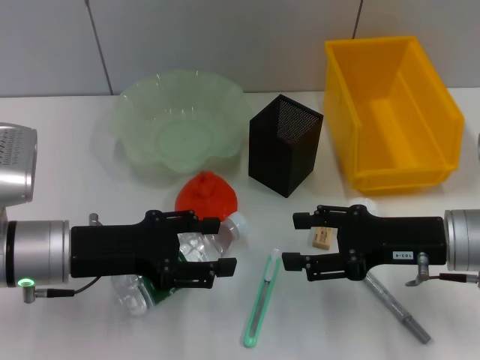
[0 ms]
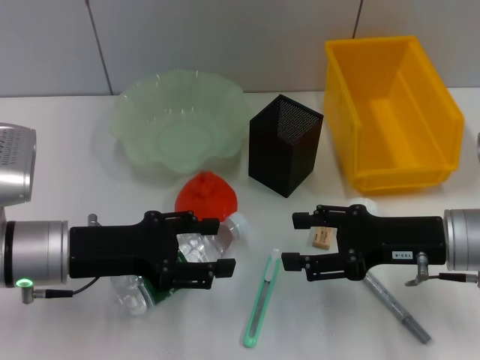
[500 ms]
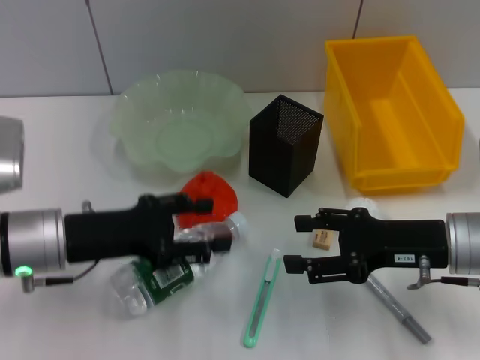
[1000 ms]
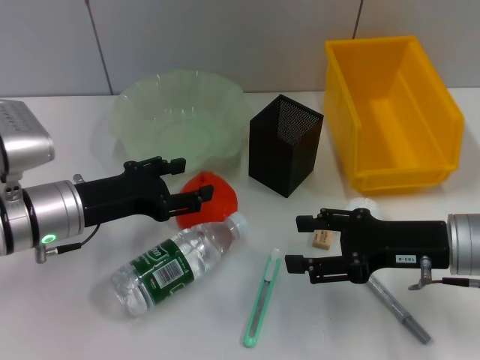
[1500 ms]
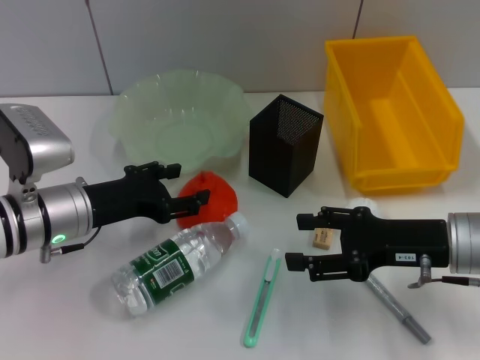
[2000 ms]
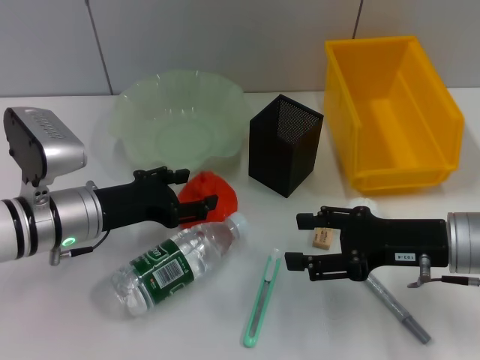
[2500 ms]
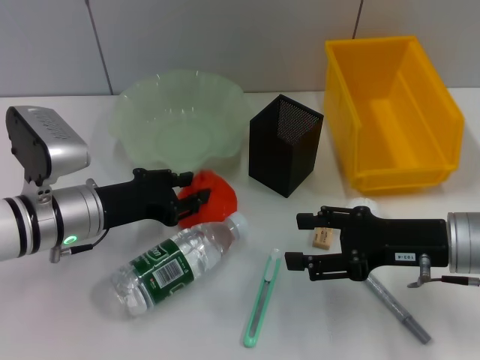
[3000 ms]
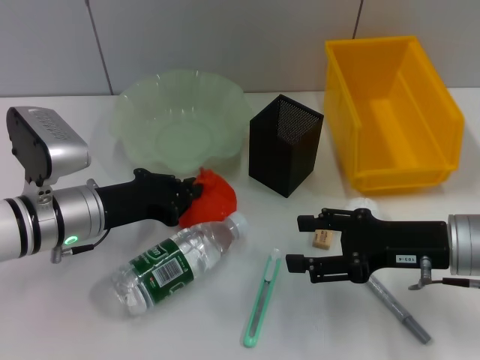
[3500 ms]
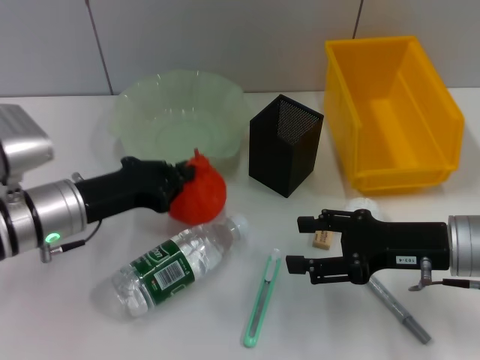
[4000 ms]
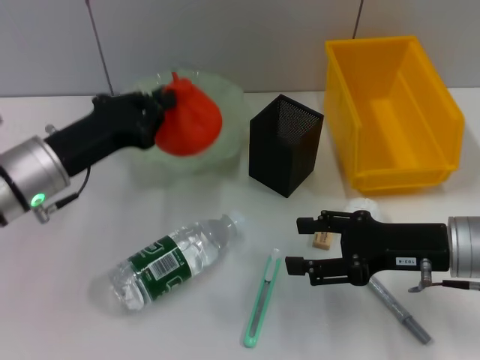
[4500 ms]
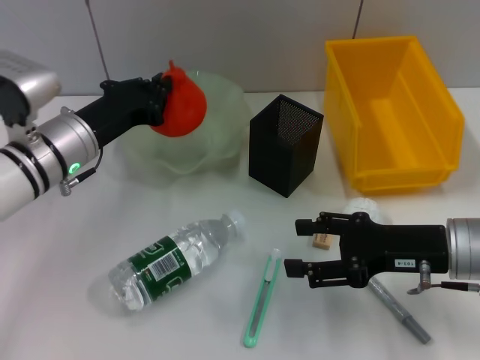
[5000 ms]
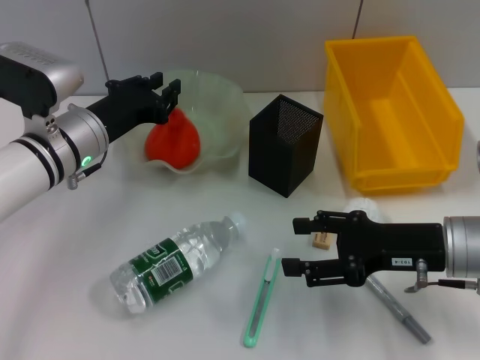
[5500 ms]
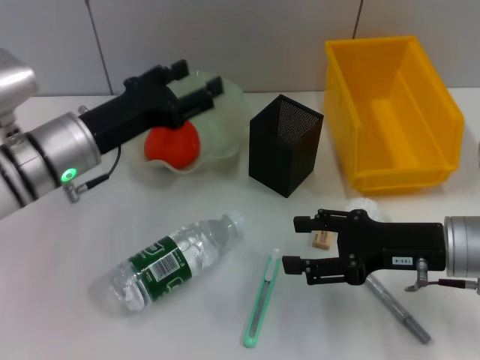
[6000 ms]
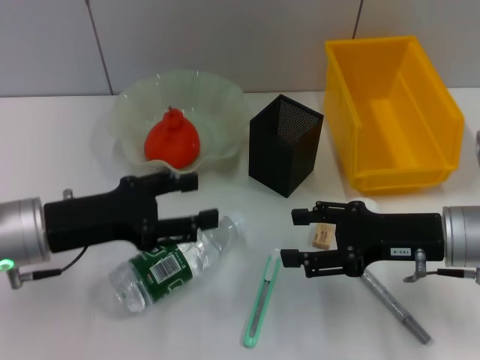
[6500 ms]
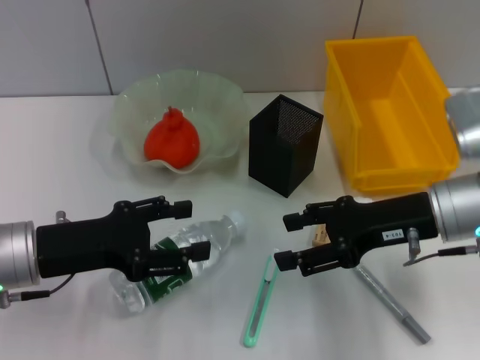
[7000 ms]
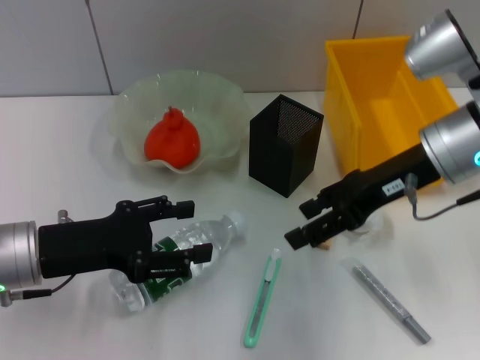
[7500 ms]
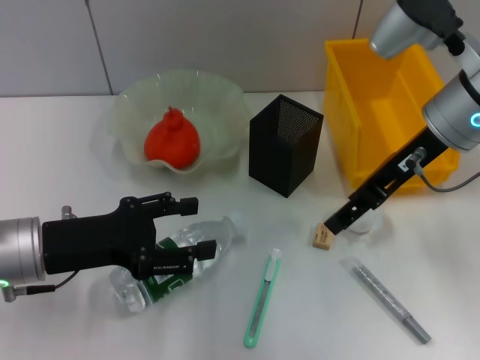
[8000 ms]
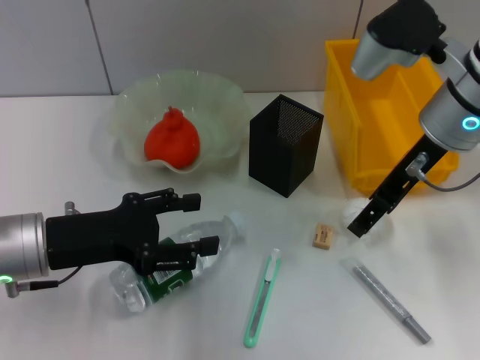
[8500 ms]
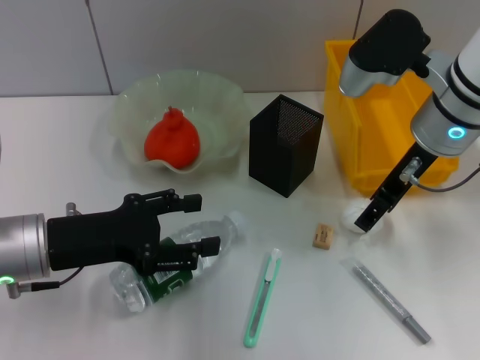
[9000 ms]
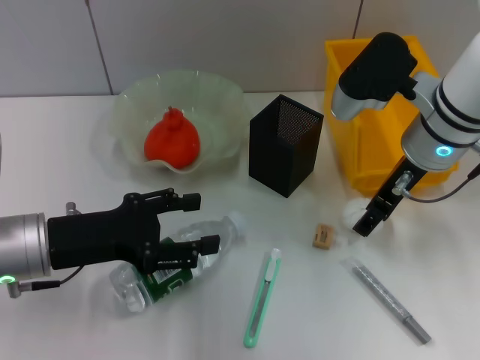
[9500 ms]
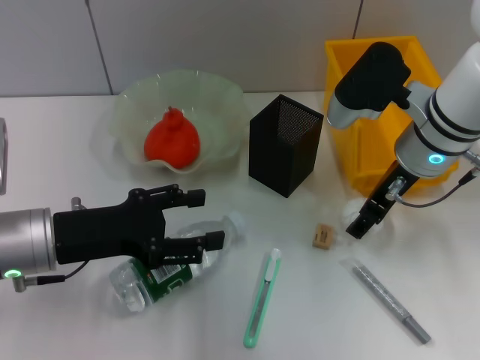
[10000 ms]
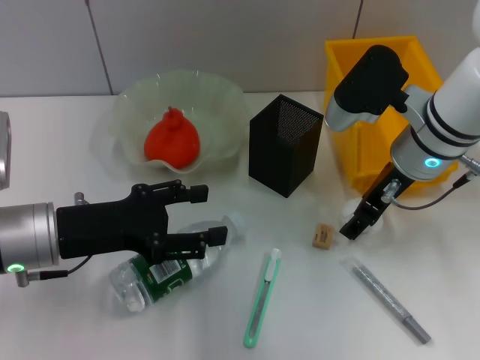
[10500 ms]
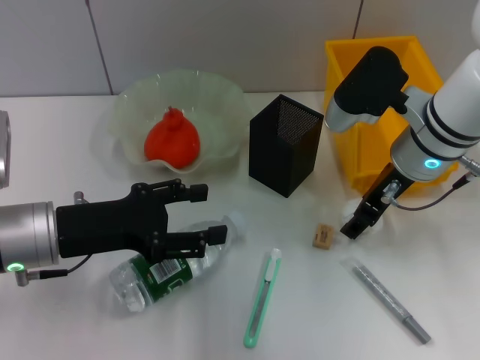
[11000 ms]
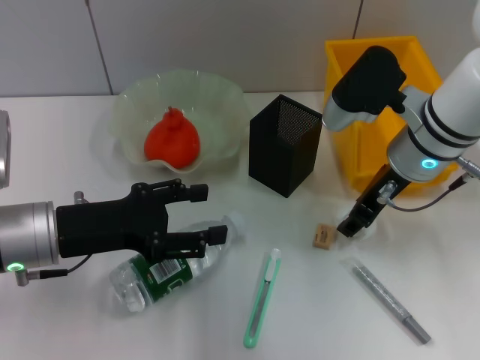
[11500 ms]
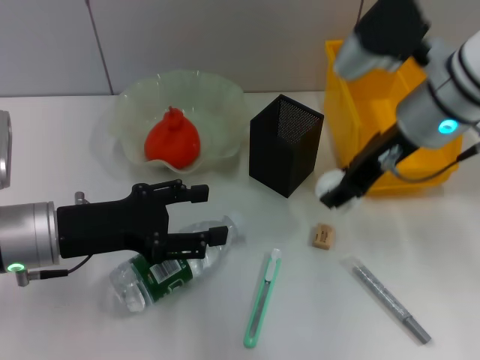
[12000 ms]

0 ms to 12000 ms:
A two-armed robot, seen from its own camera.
Step, 0 ms to 3000 ms: Grab the orange with the left hand.
Step, 3500 ms to 5500 ms: Place the orange into the fruit bowl with the left hand.
Step, 6000 ms to 11000 ms: Grab the paper ball with the right hand.
2000 ms to 4000 ms: The left gripper closes its fingers.
4000 ms to 6000 ms: The left gripper changes place by some 5 cm, and opens its fingers.
6000 ms to 8000 ms: The left gripper moves backward, roughly 10 cm; the right gripper shifts approximately 15 cm upward and forward.
8000 ms to 10000 ms: The right gripper goes approximately 5 cm downward.
10000 ms to 12000 ms: The right gripper is displaced upward by roughly 5 cm, and closes up.

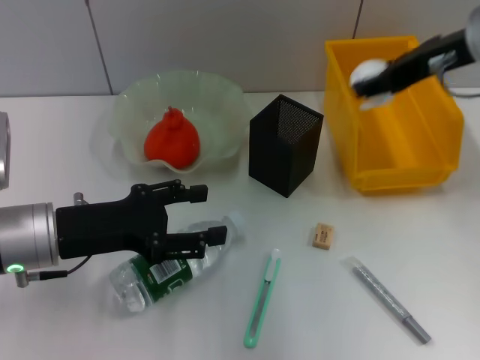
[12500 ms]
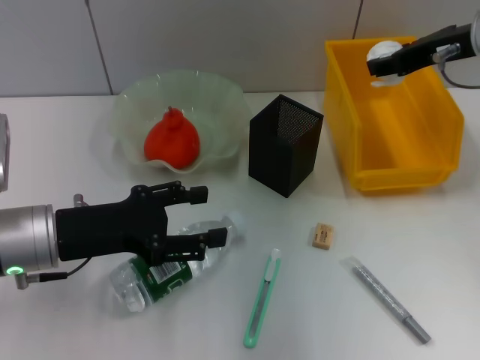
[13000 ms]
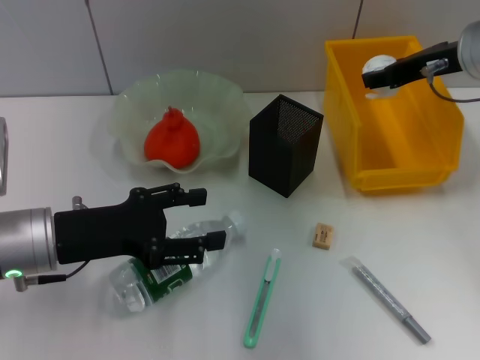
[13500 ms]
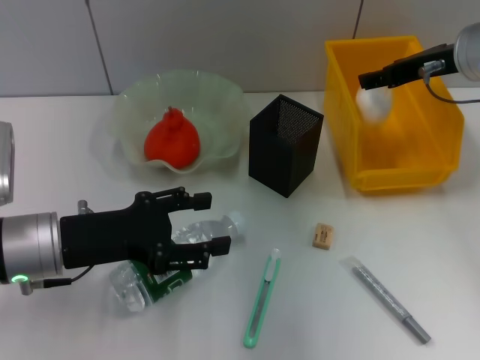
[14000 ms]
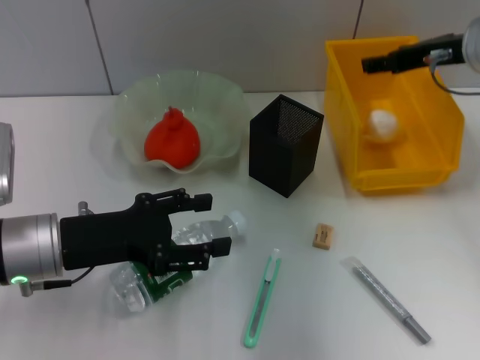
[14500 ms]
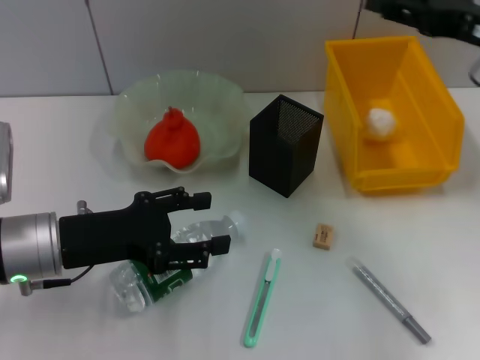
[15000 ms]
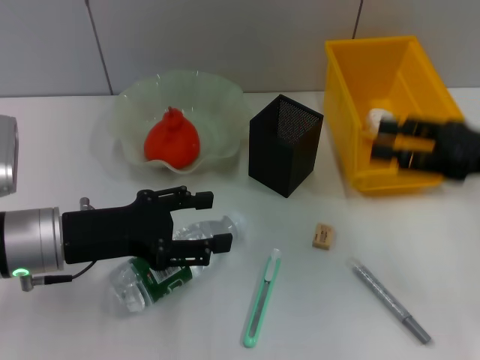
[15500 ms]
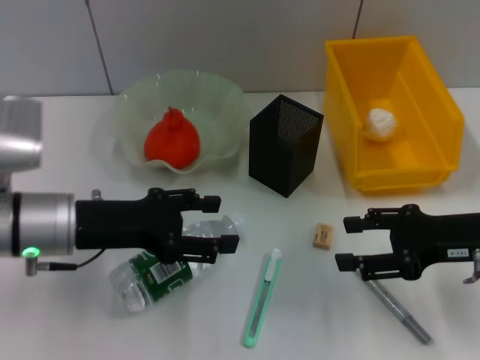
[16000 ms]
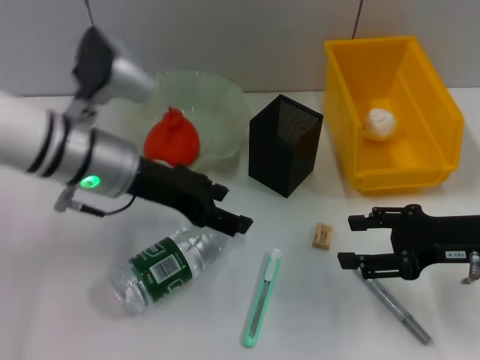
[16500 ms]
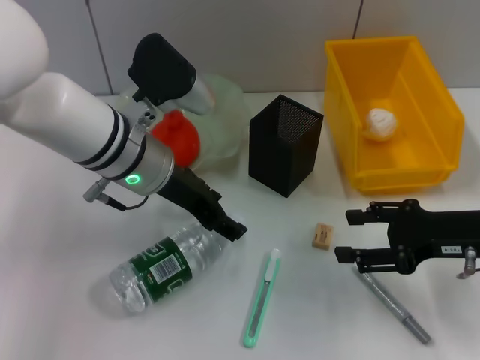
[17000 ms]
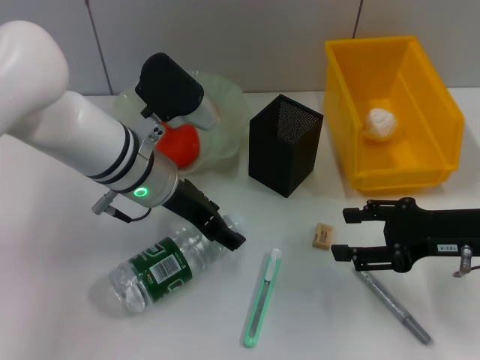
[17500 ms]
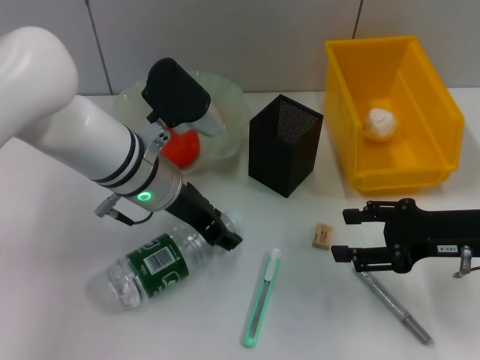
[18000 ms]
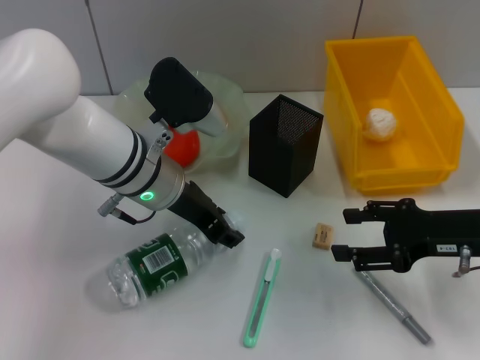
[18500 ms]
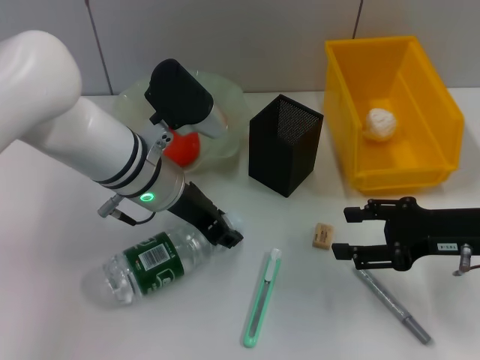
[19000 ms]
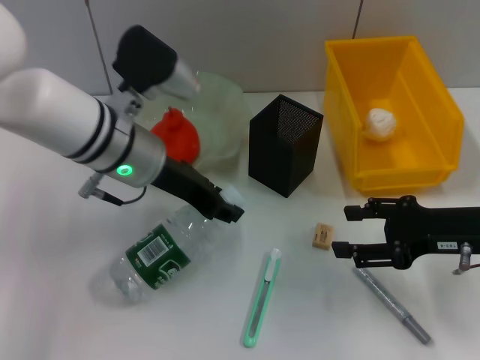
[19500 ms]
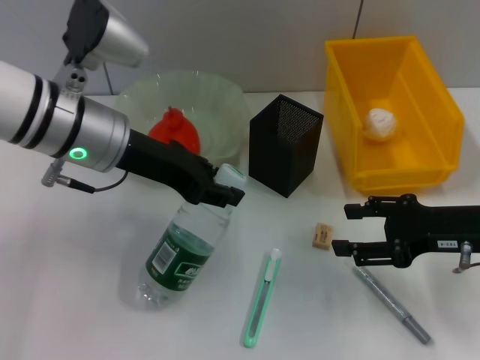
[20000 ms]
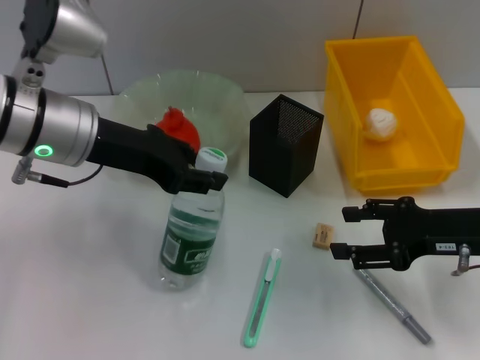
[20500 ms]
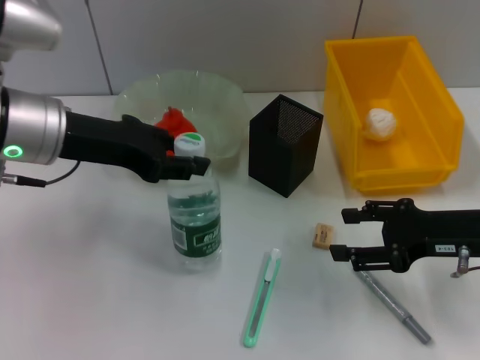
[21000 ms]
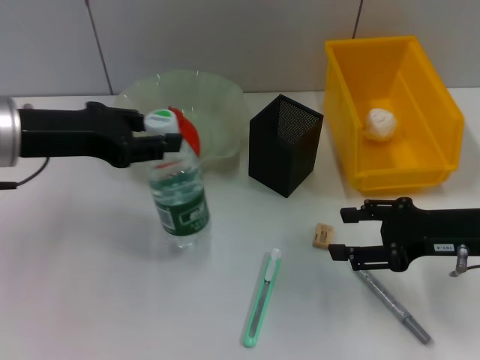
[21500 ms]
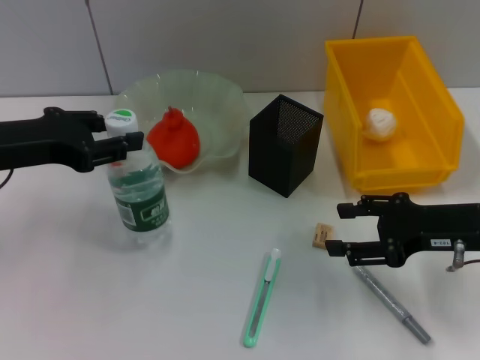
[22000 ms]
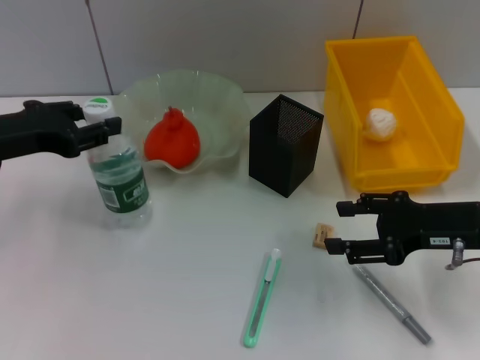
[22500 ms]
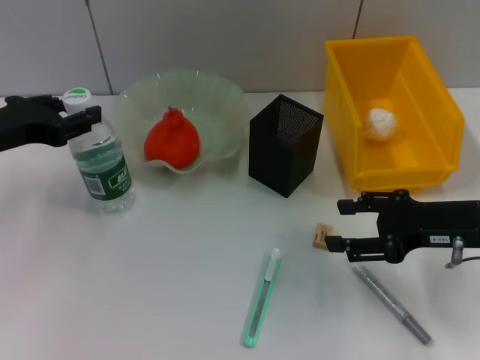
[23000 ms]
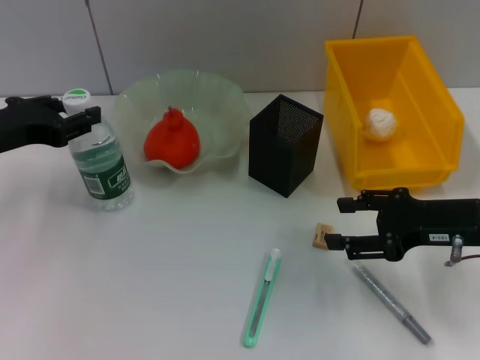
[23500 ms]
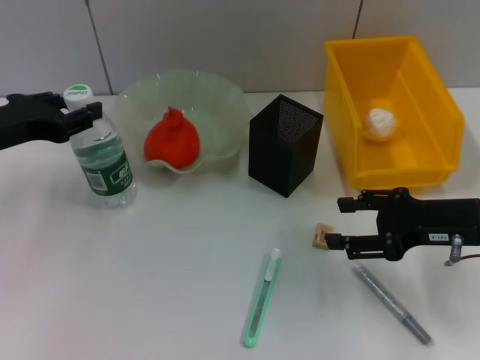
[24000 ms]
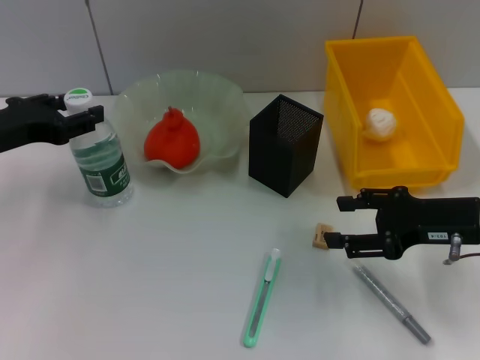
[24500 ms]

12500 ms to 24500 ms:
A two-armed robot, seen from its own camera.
Step, 14500 ms to 18500 ms: Grab the water bottle with the left hand.
12500 ms to 14500 ms: The right gripper ends up roughly 5 cm from where it was.
14500 ms to 16500 ms: The left gripper shifts roughly 10 cm forward, to the right and upward. Meanwhile the right gripper heads backward and downward, covering approximately 15 cm.
16500 ms to 18500 ms: The left gripper ends up some 5 cm from where it was.
18500 ms to 20500 ms: The left gripper moves to the left and upward, some 10 cm.
20500 ms to 22500 ms: The left gripper heads to the left, covering some 10 cm.
22500 ms to 24500 ms: The grippers move only a little.

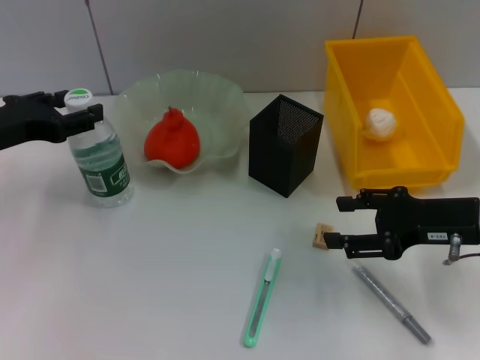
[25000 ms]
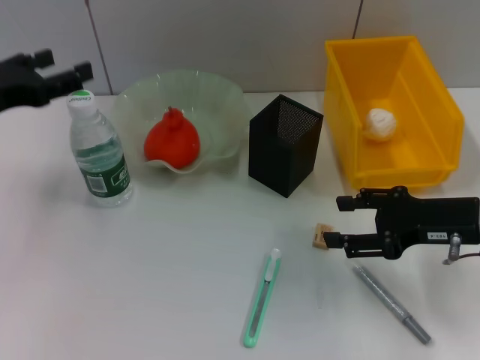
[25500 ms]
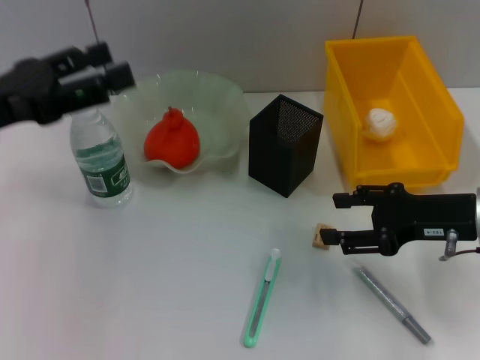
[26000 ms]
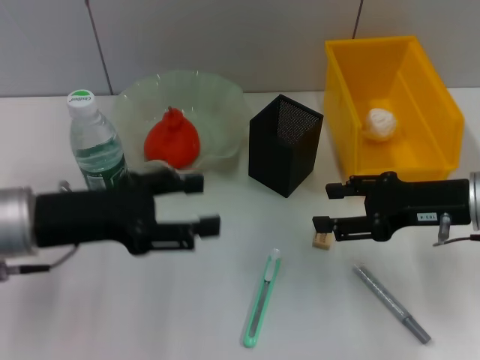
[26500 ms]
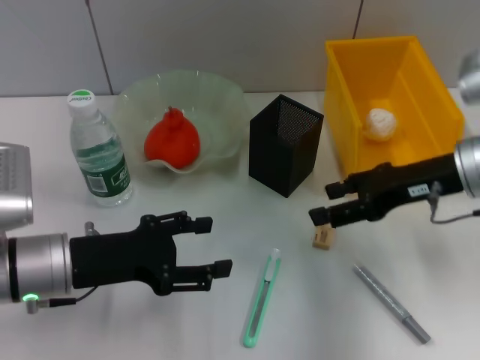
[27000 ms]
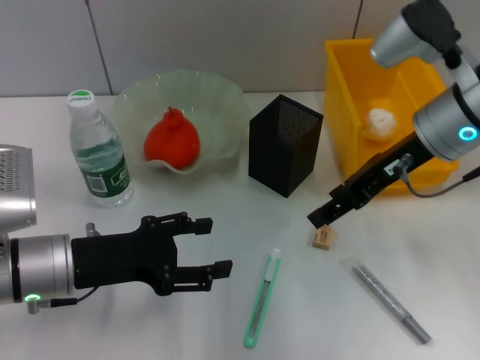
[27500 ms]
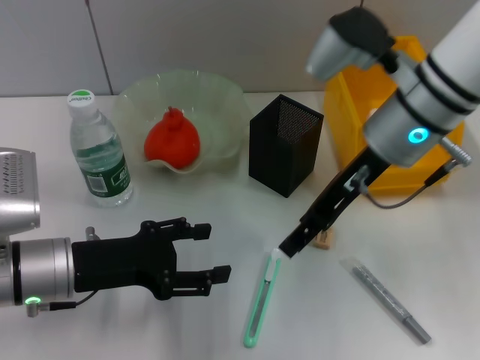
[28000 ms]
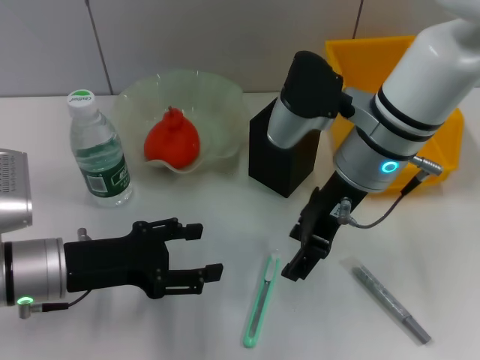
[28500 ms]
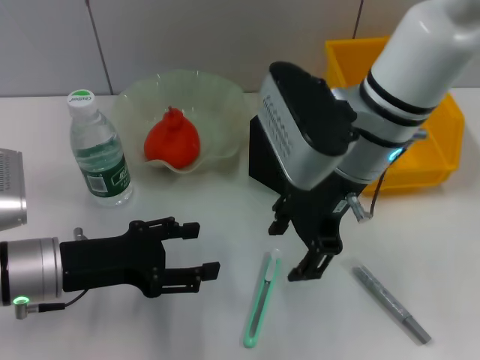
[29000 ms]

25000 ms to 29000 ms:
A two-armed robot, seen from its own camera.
25000 ms to 27000 ms: The right gripper travels upward by roughly 5 cm. The left gripper goes about 10 cm to the right, downward and backward.
27000 ms to 29000 ms: The right gripper is displaced to the left by about 15 cm.
